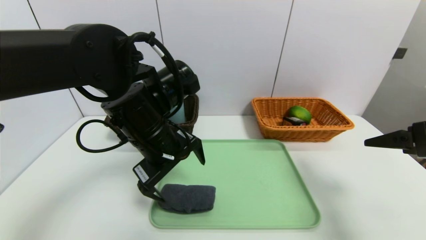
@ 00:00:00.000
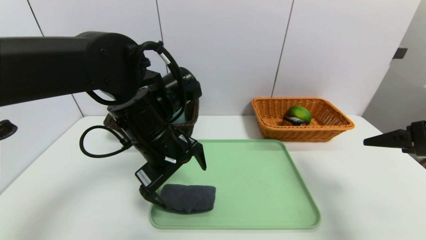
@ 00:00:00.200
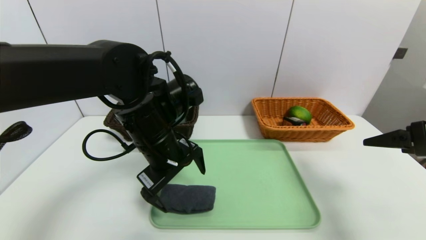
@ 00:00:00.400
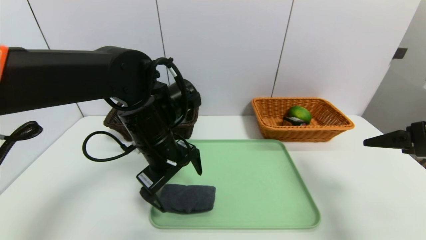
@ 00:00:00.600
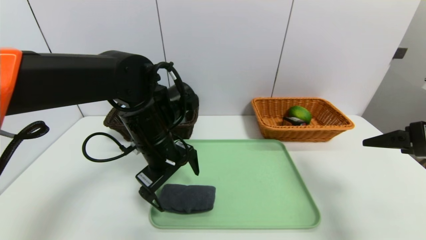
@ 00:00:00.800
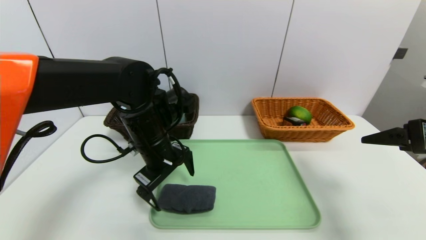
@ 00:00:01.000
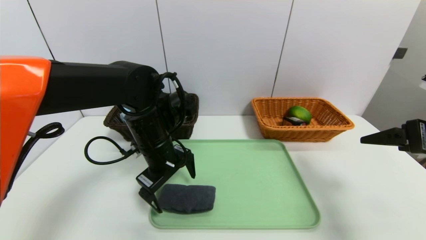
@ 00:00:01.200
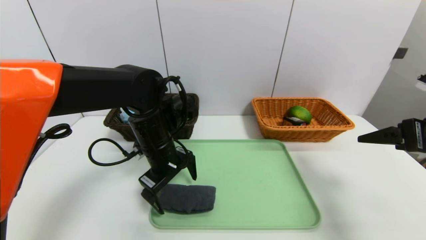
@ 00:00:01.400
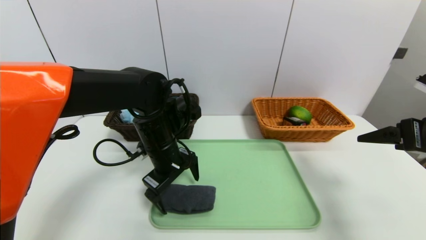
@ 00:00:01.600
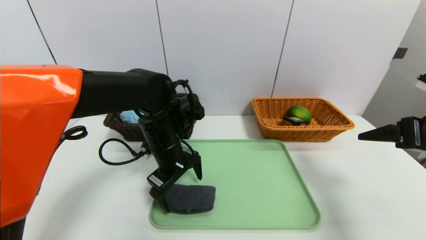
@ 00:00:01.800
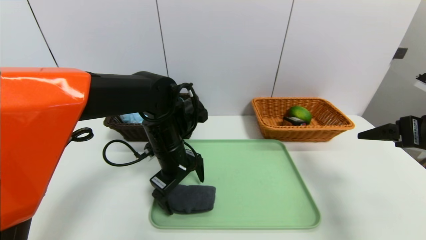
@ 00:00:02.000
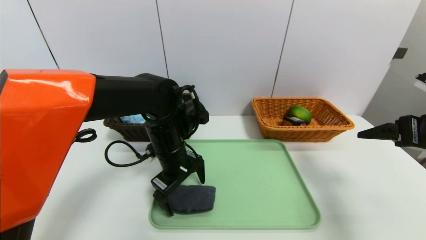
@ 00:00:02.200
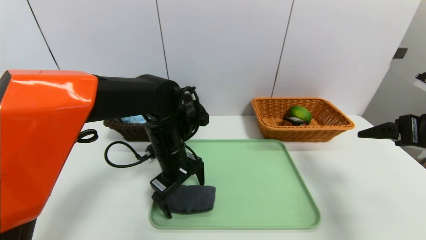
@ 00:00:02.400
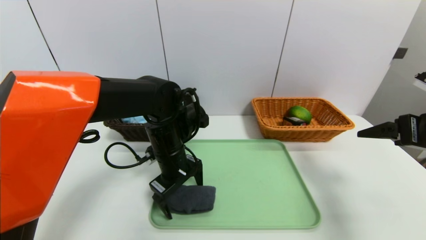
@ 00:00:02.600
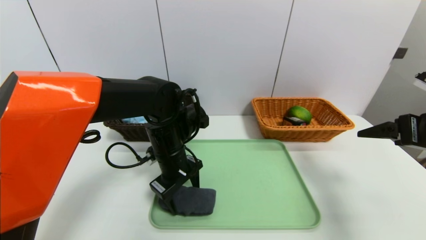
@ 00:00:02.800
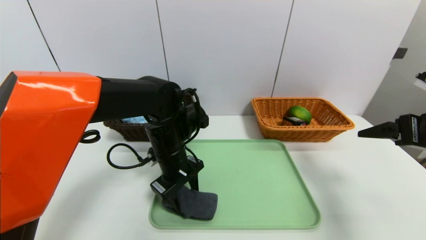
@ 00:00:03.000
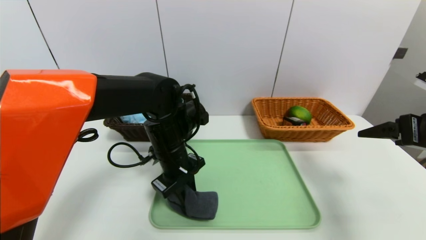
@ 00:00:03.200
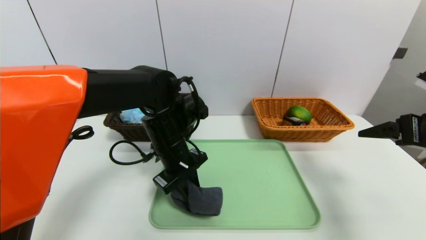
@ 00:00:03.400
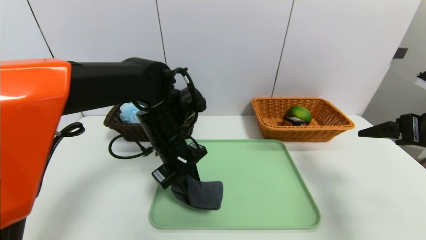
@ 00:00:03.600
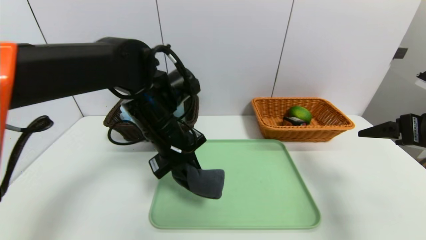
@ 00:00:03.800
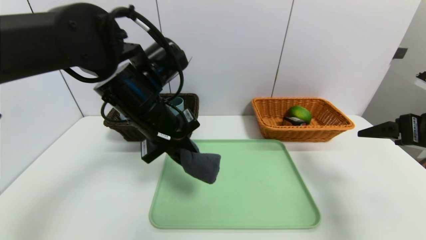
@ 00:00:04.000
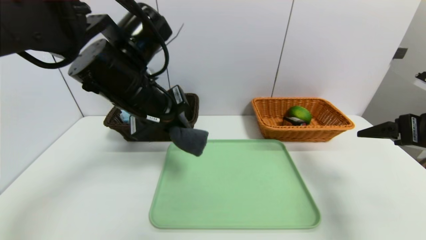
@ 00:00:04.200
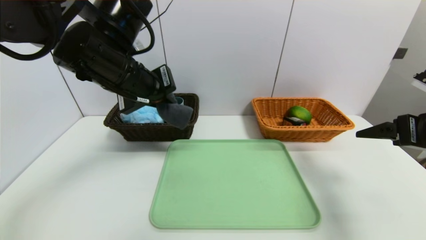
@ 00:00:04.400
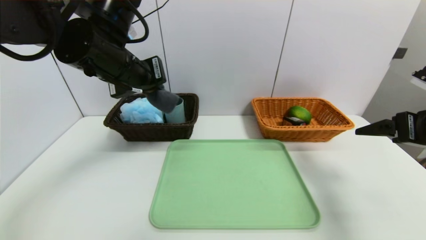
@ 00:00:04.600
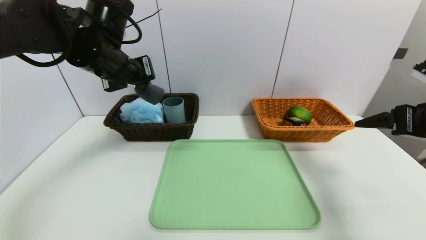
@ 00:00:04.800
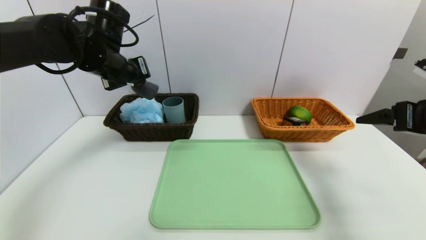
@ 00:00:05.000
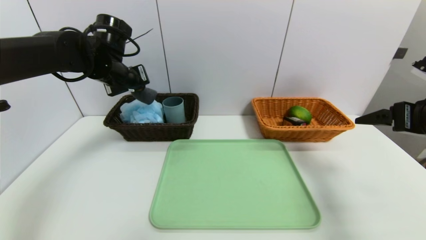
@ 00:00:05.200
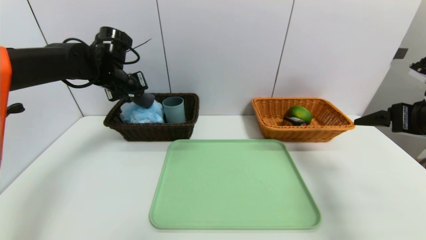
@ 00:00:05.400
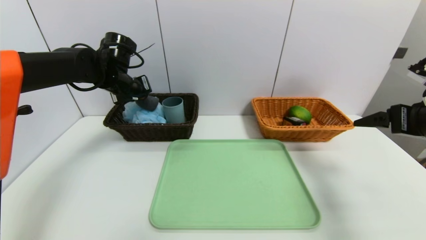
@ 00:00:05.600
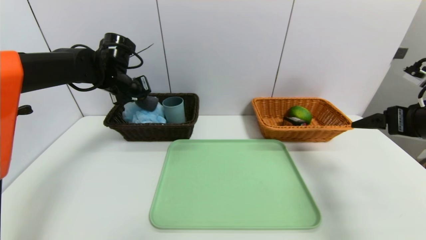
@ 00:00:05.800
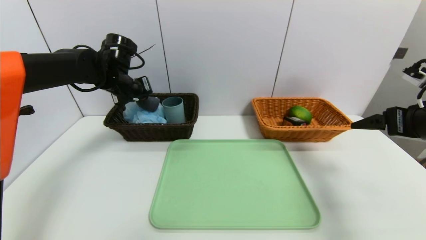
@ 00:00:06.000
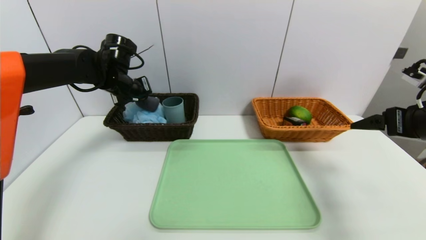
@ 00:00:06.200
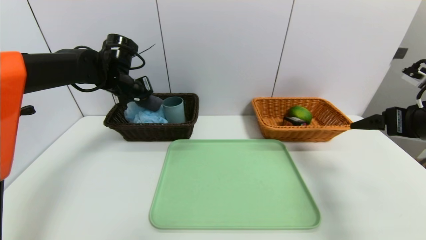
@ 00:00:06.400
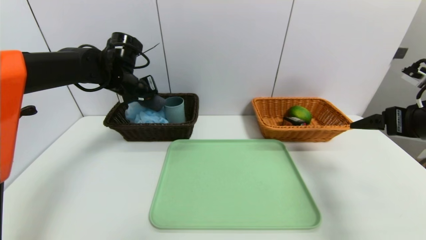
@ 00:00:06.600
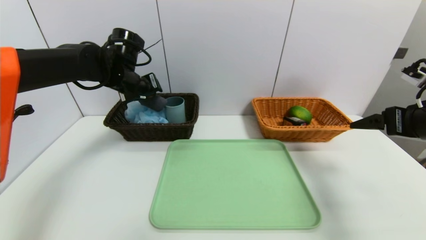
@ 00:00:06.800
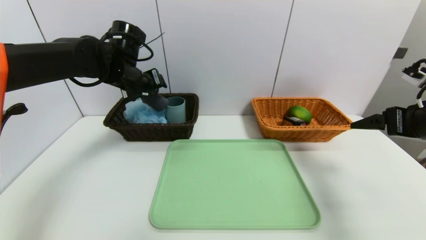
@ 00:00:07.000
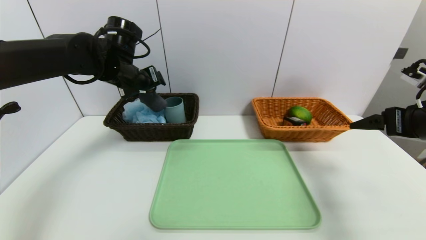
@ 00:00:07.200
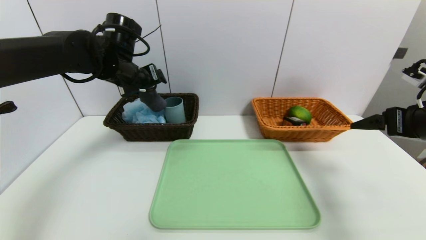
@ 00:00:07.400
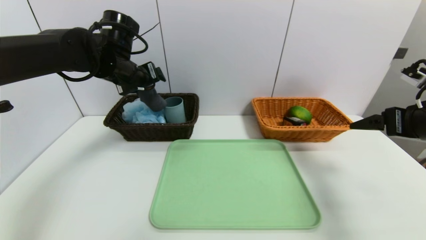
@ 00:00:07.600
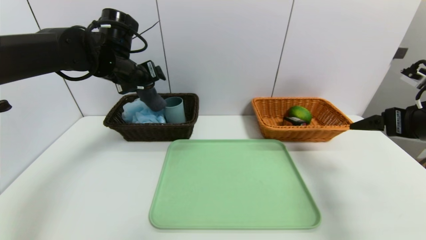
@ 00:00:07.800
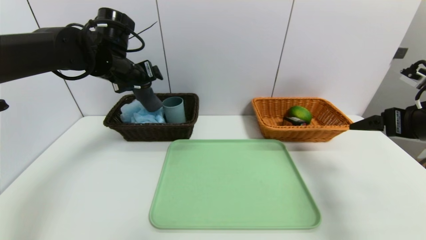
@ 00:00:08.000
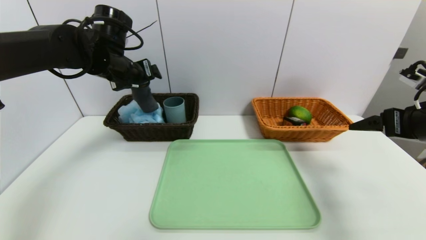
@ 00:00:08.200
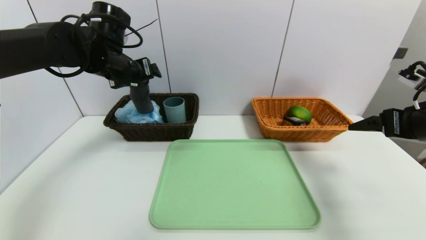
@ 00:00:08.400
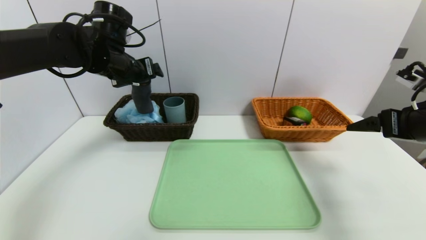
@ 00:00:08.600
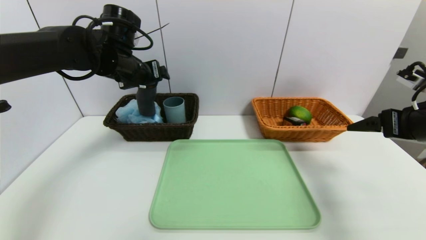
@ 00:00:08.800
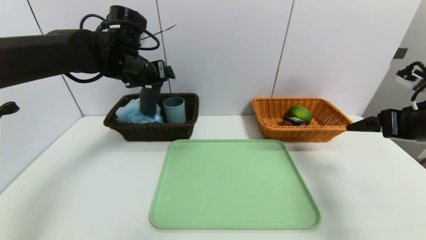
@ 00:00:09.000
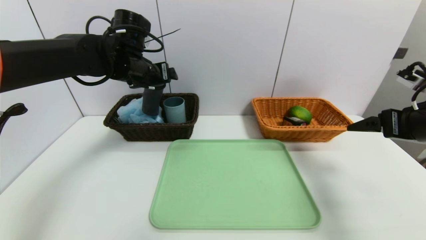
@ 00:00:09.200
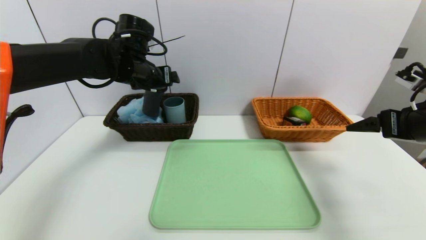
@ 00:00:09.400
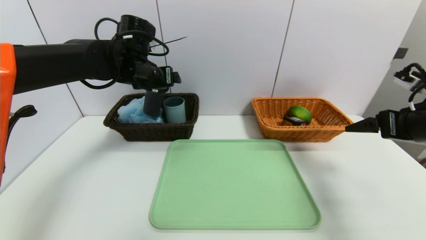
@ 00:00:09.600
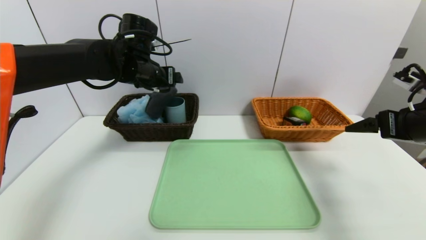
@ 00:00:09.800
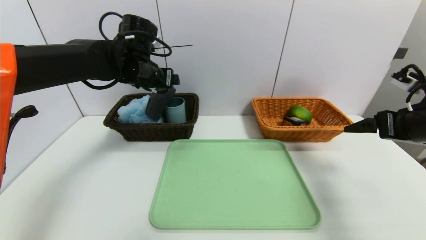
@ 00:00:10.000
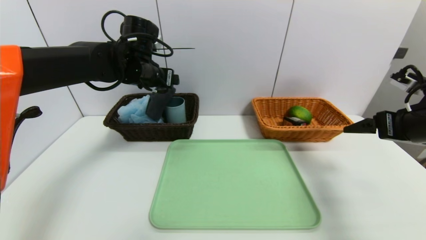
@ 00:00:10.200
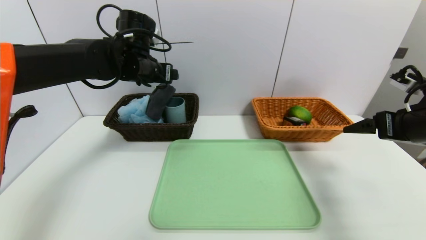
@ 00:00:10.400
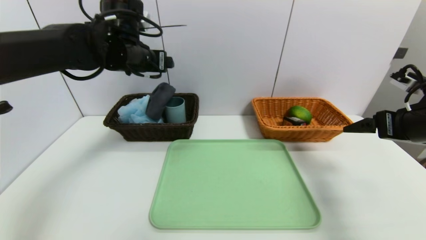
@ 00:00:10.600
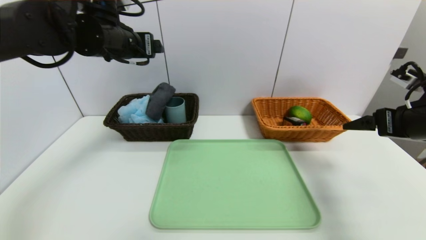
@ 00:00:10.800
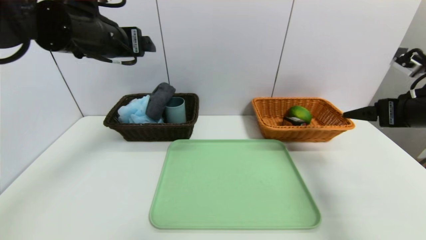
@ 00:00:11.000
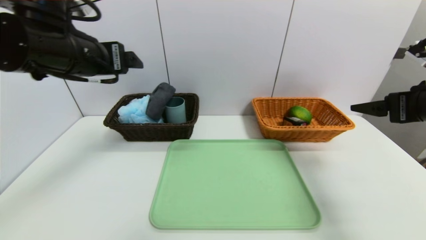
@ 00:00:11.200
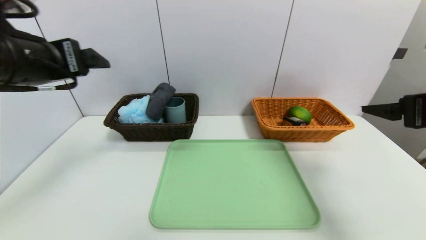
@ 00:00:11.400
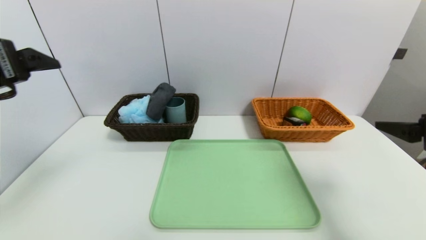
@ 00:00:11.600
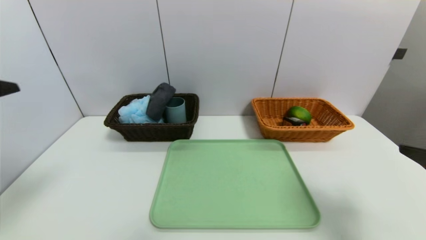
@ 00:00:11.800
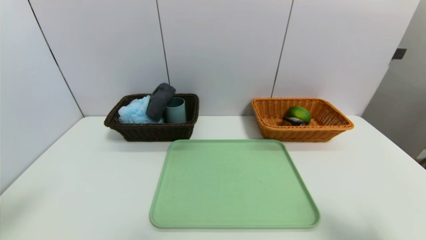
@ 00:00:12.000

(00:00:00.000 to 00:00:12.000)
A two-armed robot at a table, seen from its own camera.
Task of the whole recording: place the food in the right basket with the right gripper, and place the non food items in the left basket with the left gripper.
Step, 00:00:00.000 - 00:00:09.800: Grasp the grey towel and put it in the left basket.
00:00:00.000 - 00:00:01.600: The left gripper is displaced downward by some 5 cm.
00:00:01.600 - 00:00:03.000: The left gripper closes its fingers.
00:00:03.000 - 00:00:04.400: The left gripper is displaced upward by about 15 cm.
00:00:04.400 - 00:00:06.000: The left gripper is displaced forward, to the left and downward by about 20 cm.
00:00:06.000 - 00:00:07.600: The left gripper changes place by roughly 5 cm, and opens up.
00:00:07.600 - 00:00:09.000: There are only small adjustments of the grippers.
00:00:09.000 - 00:00:10.400: The grippers stay close to where they were, moving slightly.
00:00:10.400 - 00:00:12.000: The right gripper shifts roughly 20 cm backward, while the left gripper shifts about 35 cm backward and to the left.
